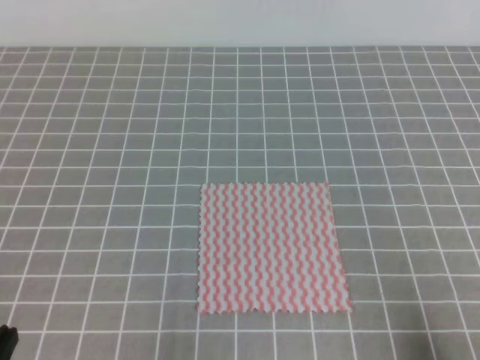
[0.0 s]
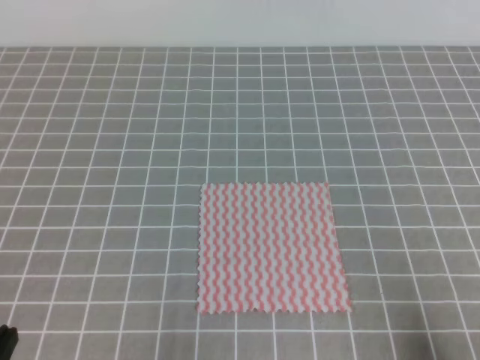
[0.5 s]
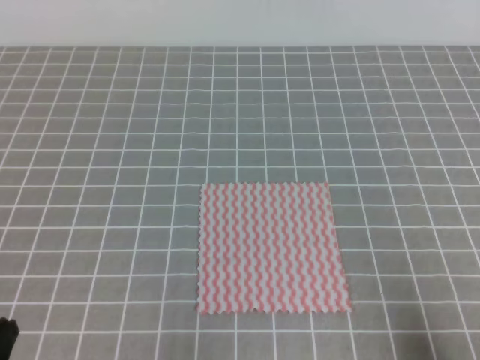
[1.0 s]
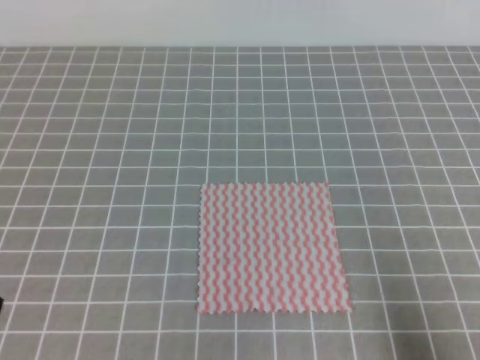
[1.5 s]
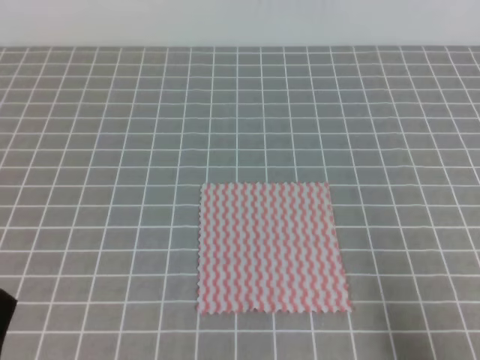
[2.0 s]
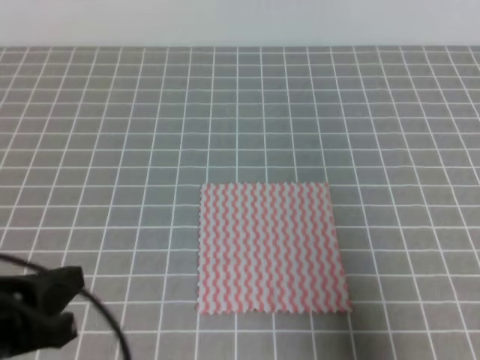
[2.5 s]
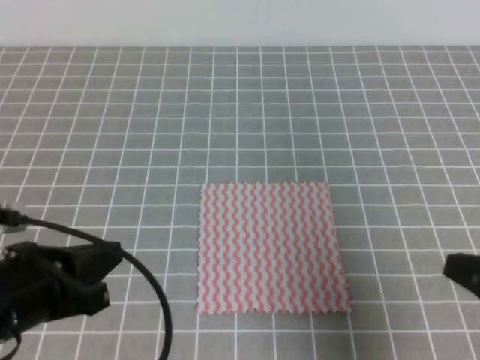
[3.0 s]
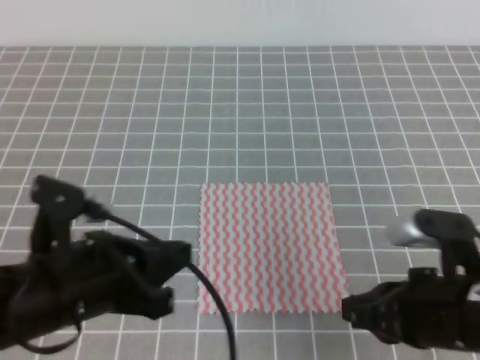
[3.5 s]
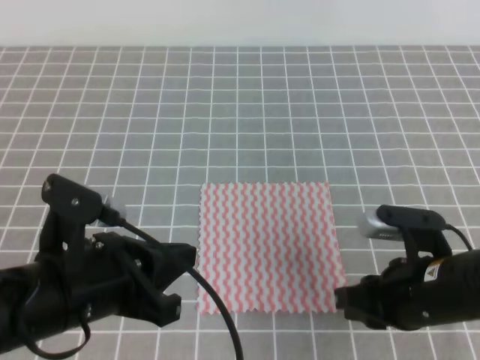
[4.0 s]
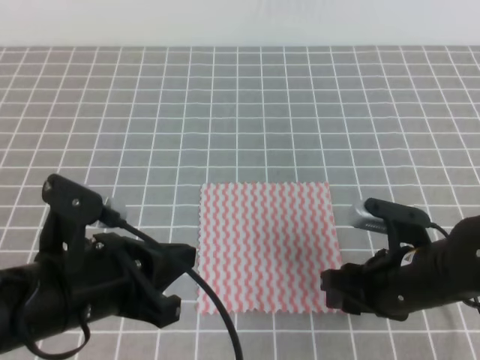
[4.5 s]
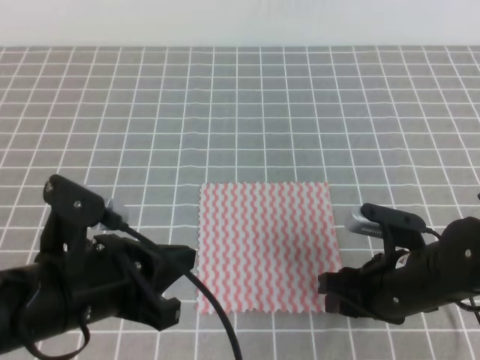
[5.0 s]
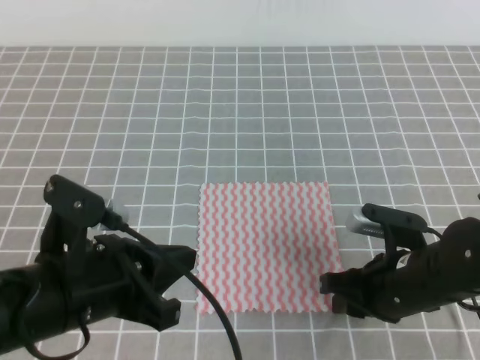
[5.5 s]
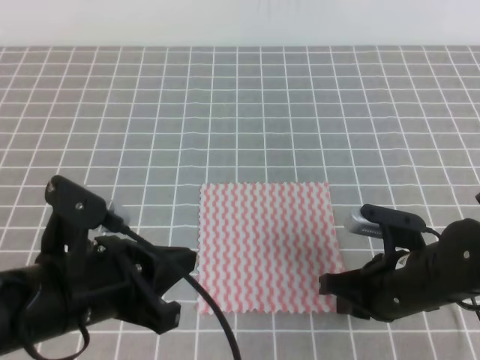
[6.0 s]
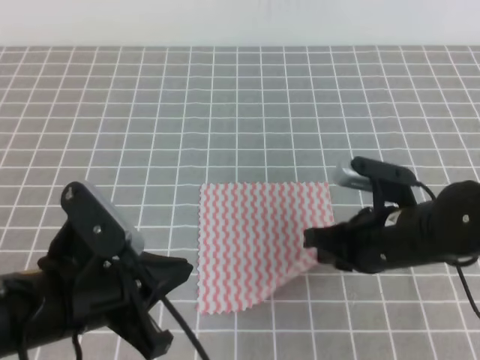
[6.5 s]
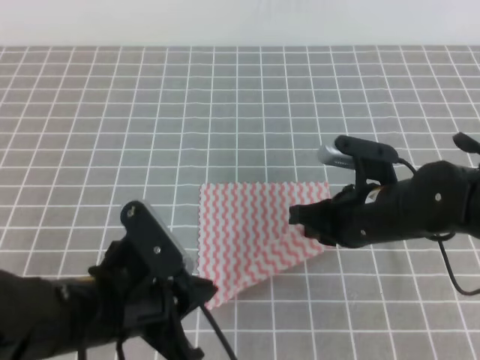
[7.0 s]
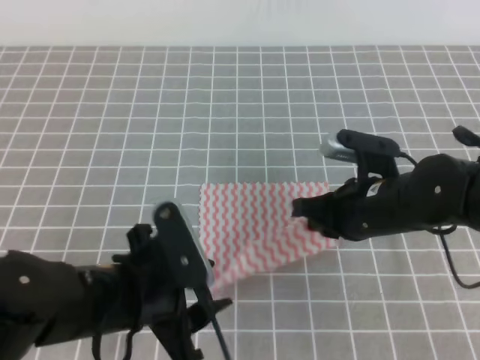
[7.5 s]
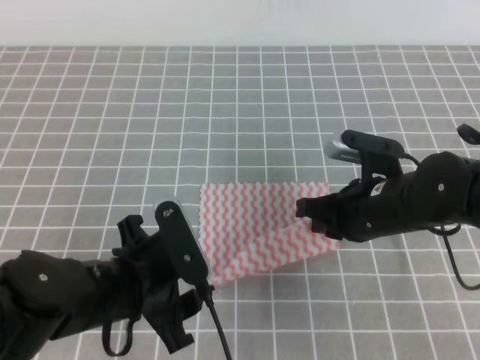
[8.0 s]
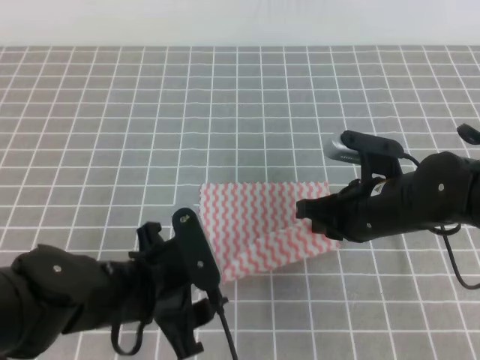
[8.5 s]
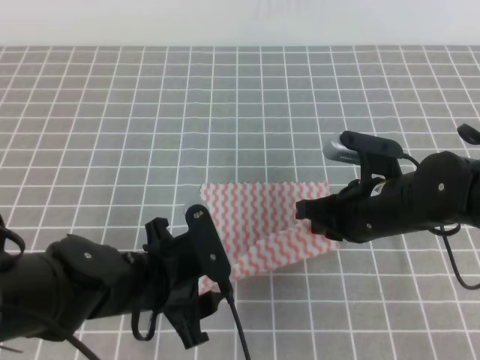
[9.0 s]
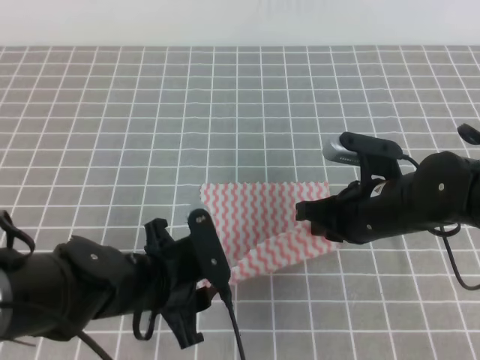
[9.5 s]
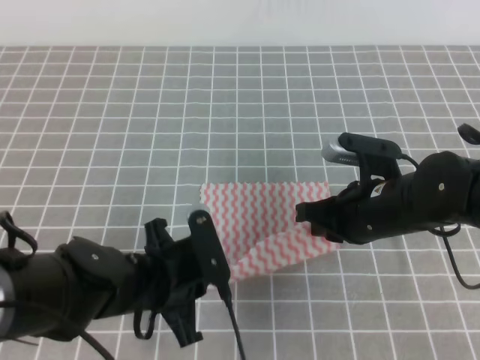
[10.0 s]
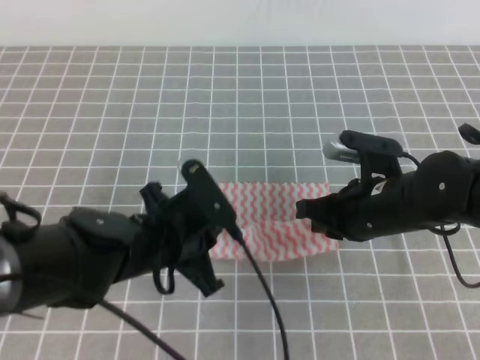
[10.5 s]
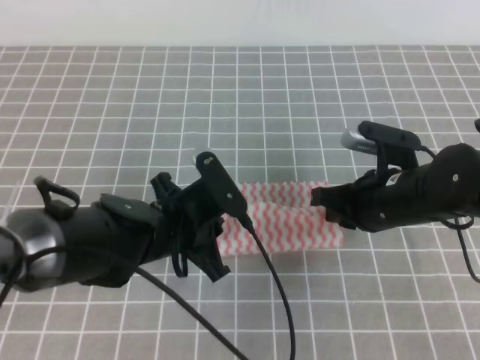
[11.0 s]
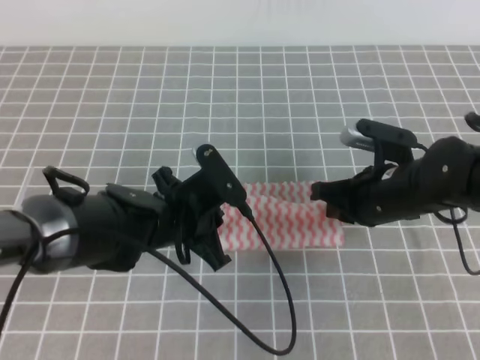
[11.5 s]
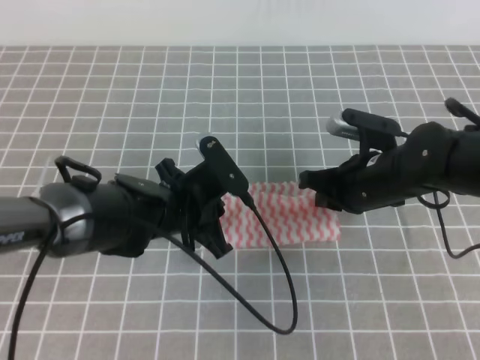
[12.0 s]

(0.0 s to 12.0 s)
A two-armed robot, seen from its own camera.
2.0 s - 4.0 s: The right gripper shifts approximately 20 cm forward and to the left, and opens up. The left gripper goes approximately 15 cm forward and to the right.
4.0 s - 6.0 s: The right gripper closes.
6.0 s - 8.0 s: The left gripper goes about 5 cm downward, and opens. Meanwhile the right gripper heads forward, covering some 5 cm.
8.0 s - 10.0 s: The left gripper closes up.
10.0 s - 12.0 s: The left gripper moves forward, roughly 10 cm, while the right gripper goes some 5 cm forward.

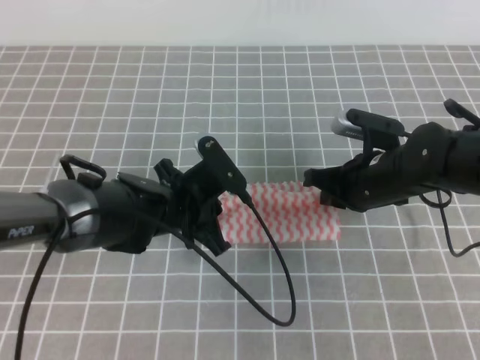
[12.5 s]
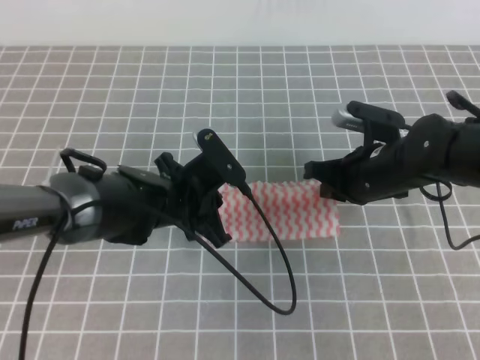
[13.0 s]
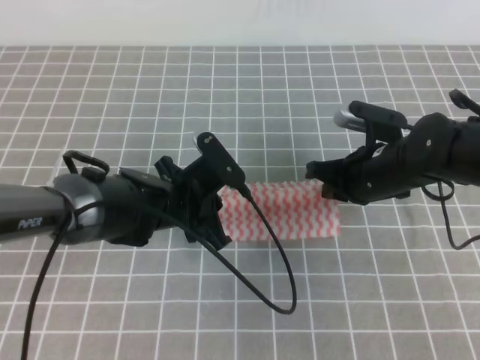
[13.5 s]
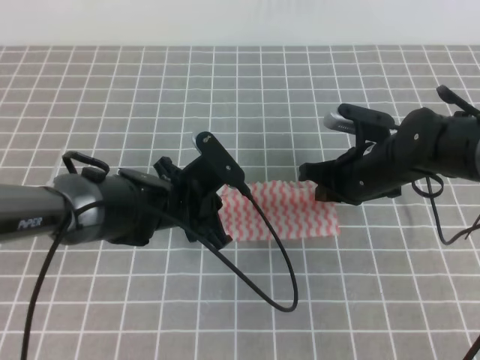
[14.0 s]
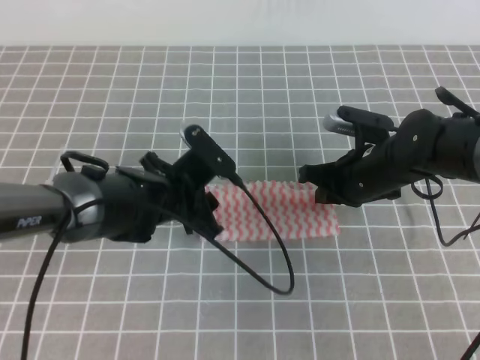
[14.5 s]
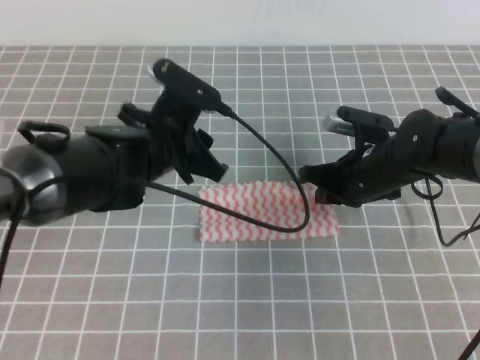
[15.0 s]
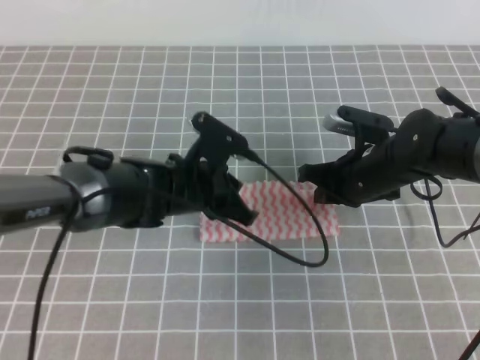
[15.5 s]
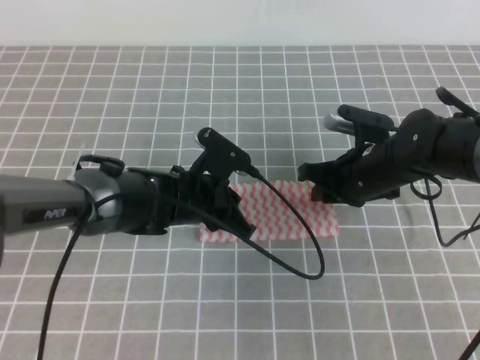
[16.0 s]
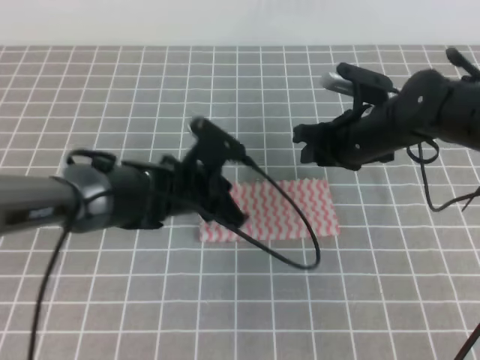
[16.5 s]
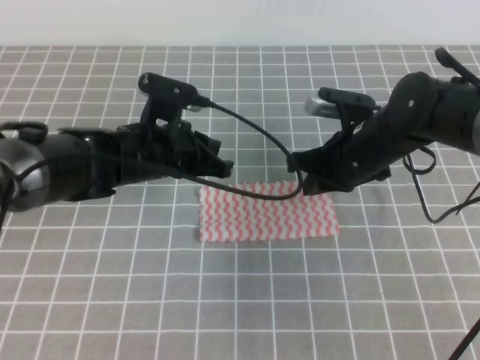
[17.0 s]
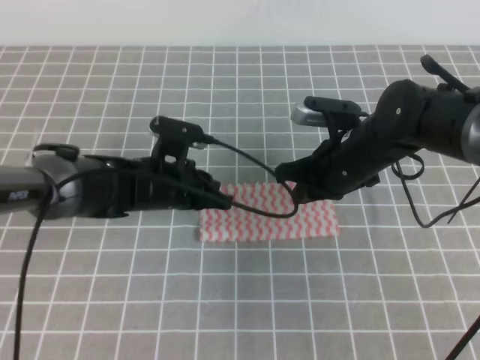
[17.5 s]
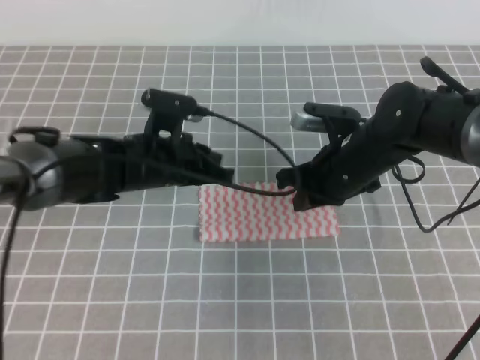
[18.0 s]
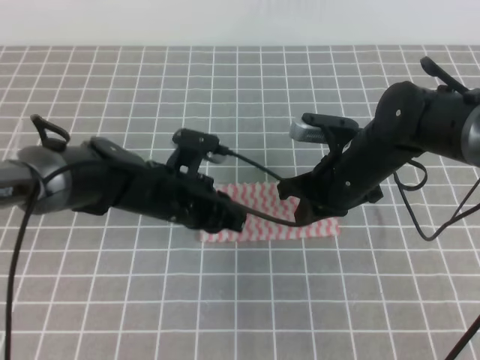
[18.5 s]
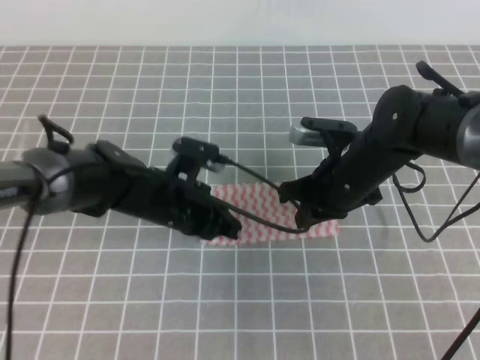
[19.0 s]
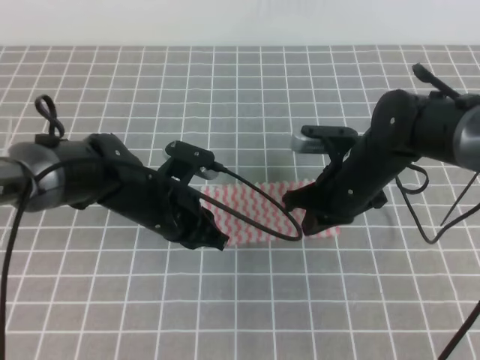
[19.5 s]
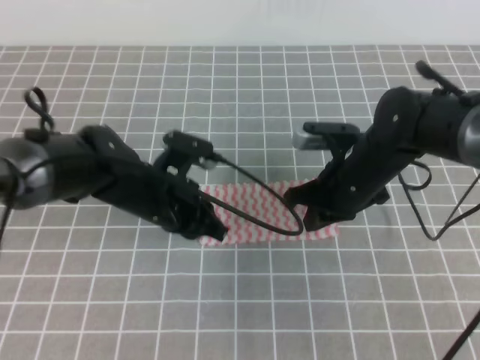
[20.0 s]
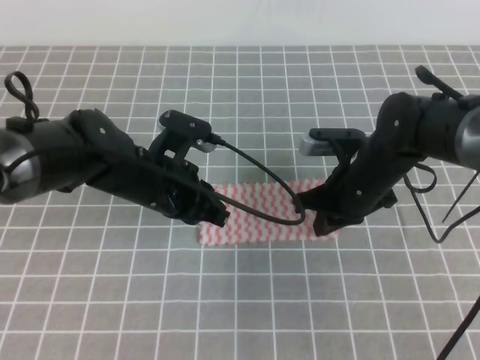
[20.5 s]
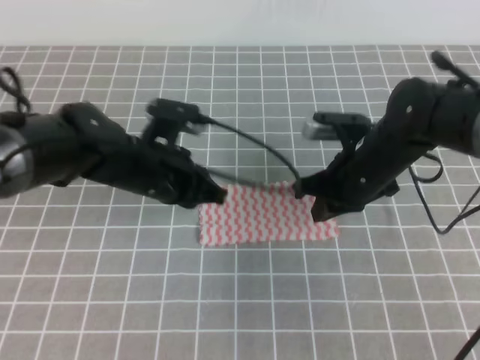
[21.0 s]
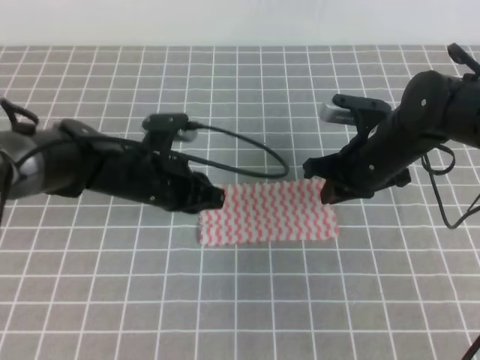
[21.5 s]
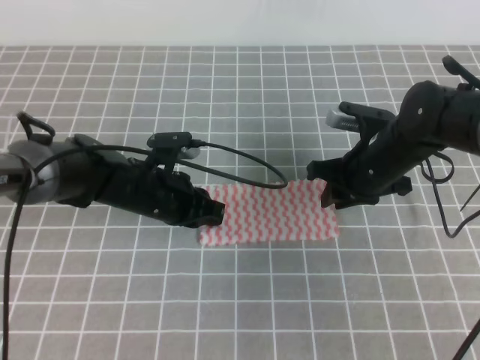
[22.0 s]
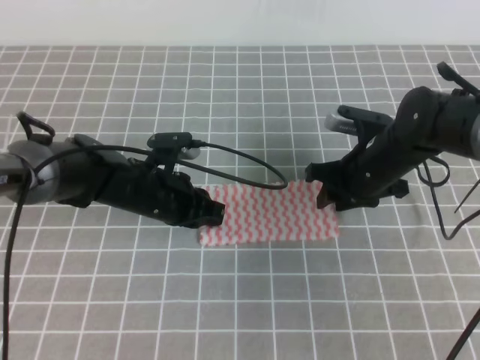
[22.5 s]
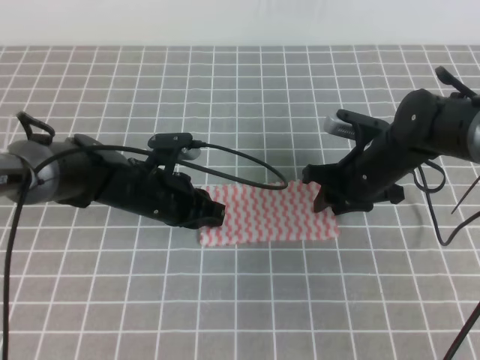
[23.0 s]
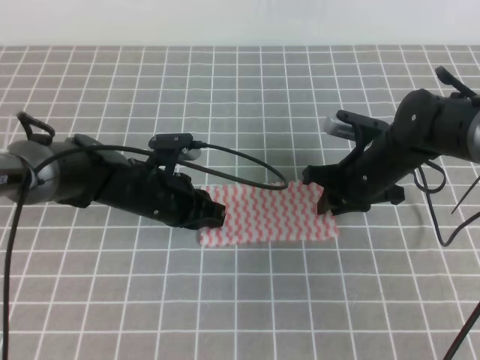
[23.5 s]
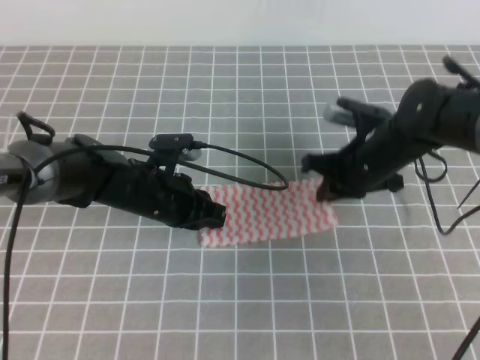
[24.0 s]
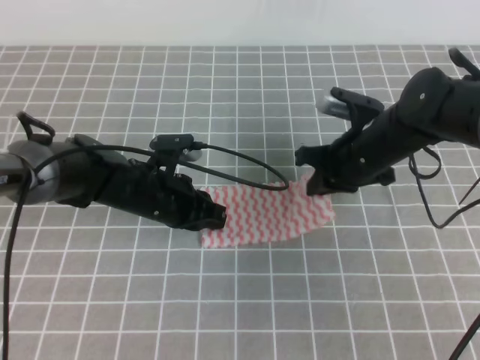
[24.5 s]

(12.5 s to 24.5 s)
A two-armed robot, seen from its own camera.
12.5 s - 14.5 s: The left gripper opens.
14.5 s - 16.5 s: The left gripper reaches some 5 cm upward, then returns, and closes its fingers; the right gripper opens its fingers.
16.5 s - 18.5 s: The right gripper closes its fingers.
18.5 s - 20.5 s: The grippers move only a little.
20.5 s - 22.5 s: The right gripper opens up; the left gripper goes roughly 5 cm downward.
22.5 s - 24.5 s: The right gripper closes up.

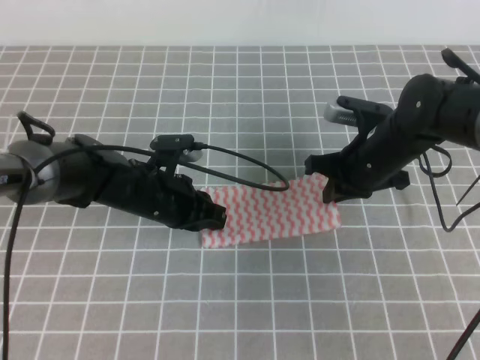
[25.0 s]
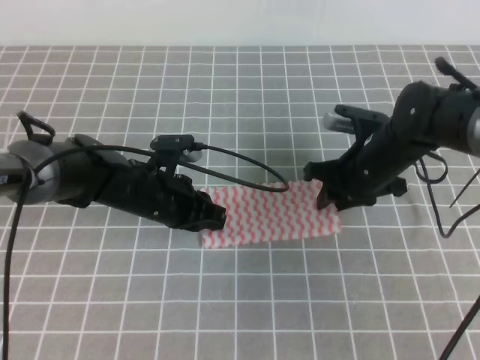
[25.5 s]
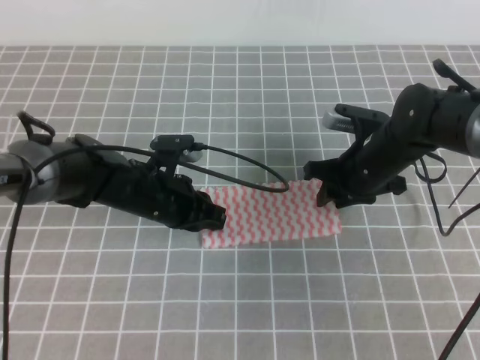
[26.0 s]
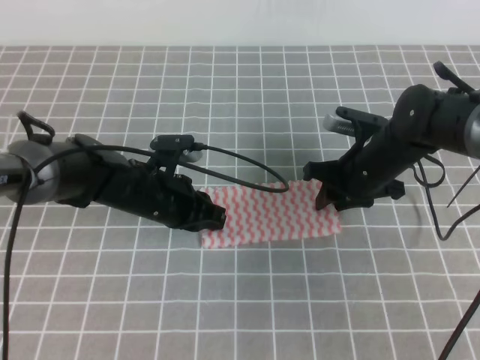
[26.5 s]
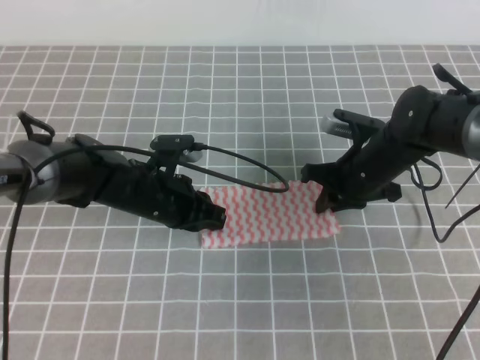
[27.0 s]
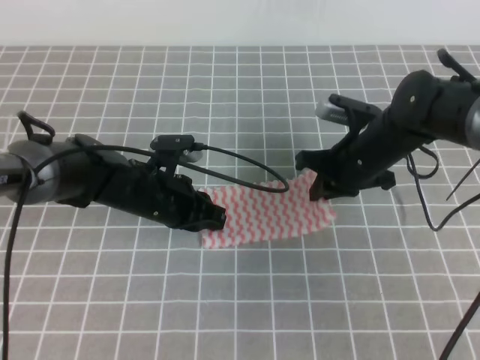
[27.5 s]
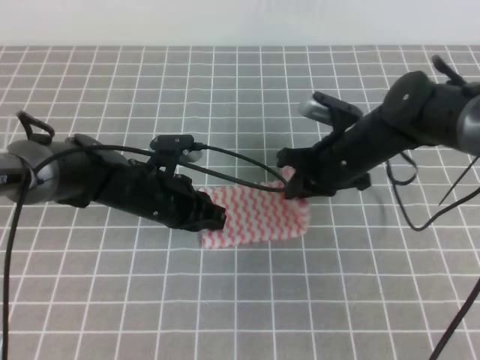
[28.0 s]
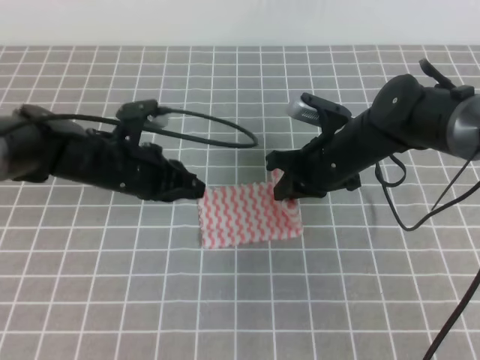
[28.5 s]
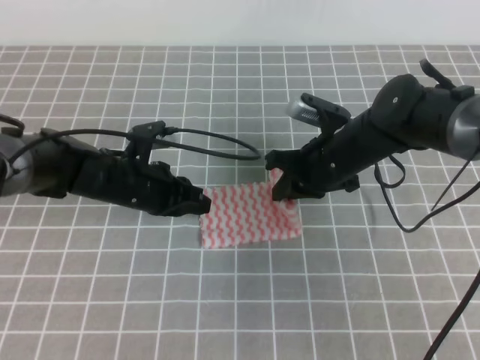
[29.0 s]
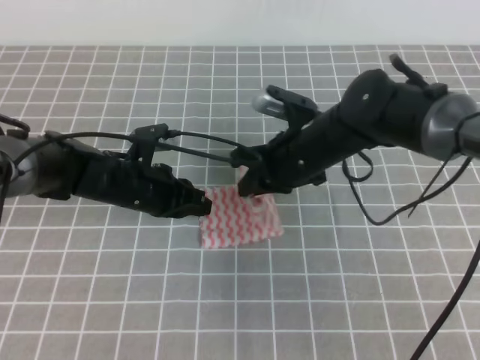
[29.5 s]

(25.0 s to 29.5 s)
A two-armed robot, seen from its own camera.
25.0 s - 27.0 s: The right gripper opens, then closes again.
27.0 s - 29.5 s: The right gripper is displaced to the left by about 10 cm.
